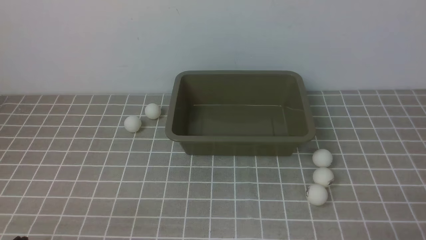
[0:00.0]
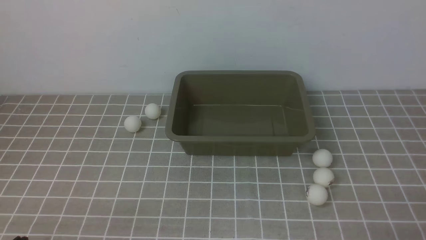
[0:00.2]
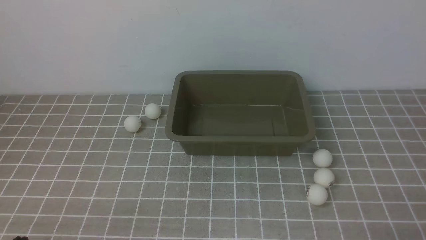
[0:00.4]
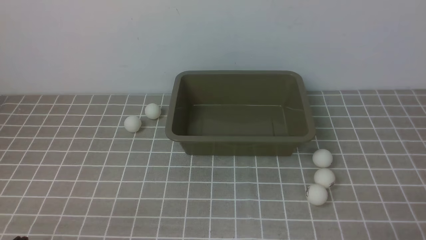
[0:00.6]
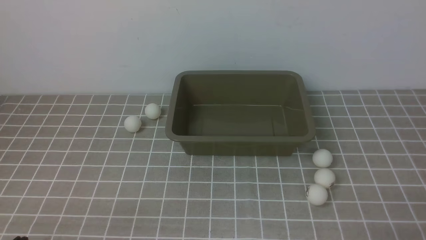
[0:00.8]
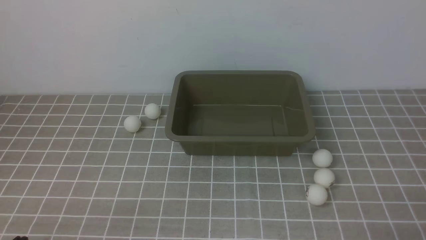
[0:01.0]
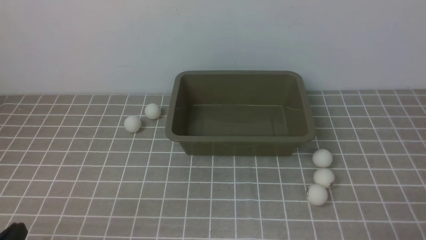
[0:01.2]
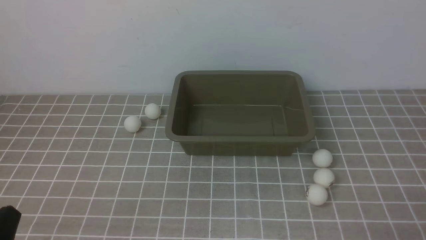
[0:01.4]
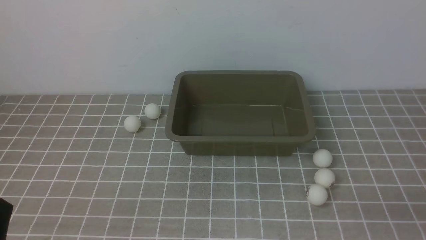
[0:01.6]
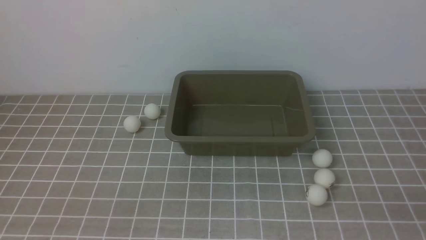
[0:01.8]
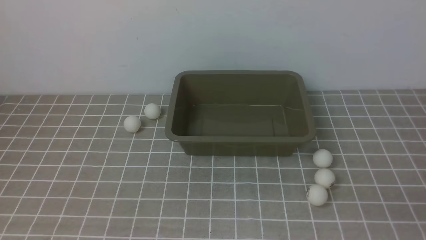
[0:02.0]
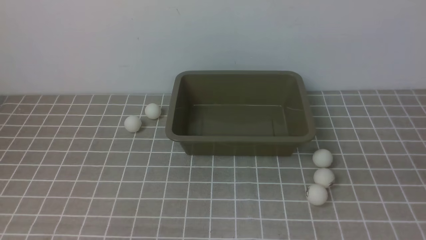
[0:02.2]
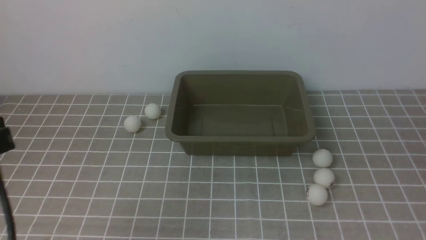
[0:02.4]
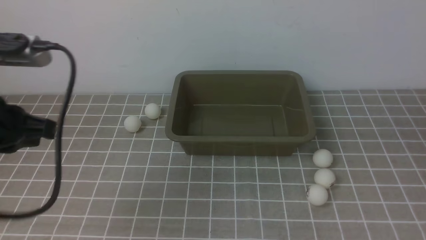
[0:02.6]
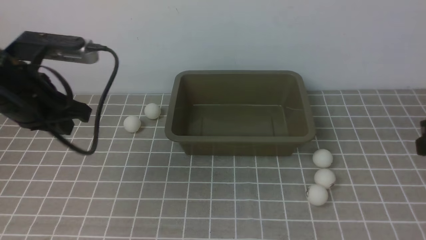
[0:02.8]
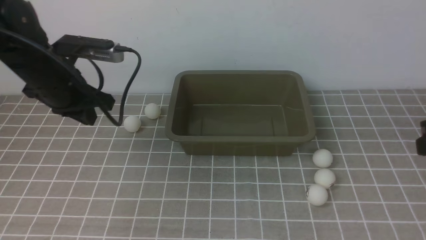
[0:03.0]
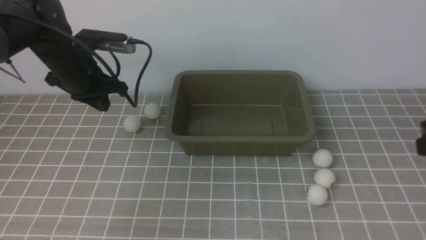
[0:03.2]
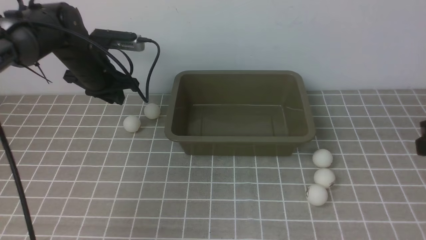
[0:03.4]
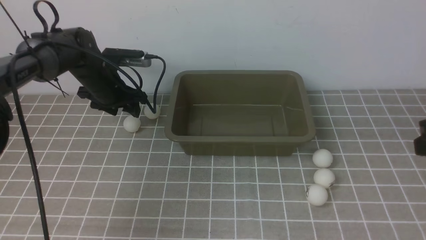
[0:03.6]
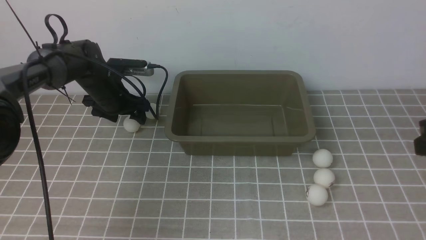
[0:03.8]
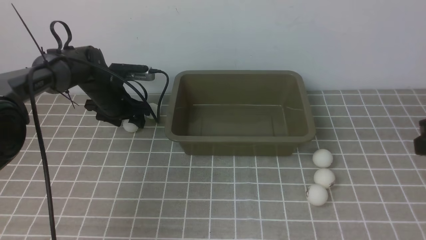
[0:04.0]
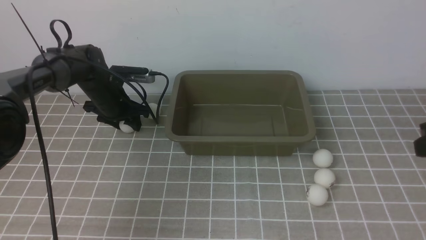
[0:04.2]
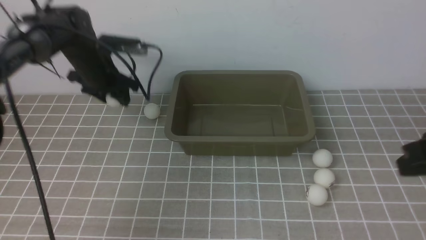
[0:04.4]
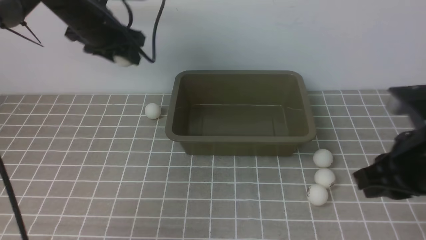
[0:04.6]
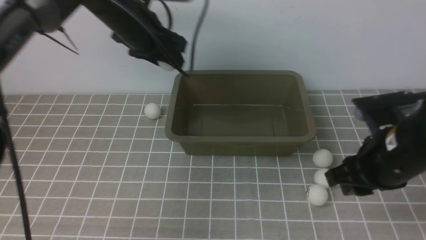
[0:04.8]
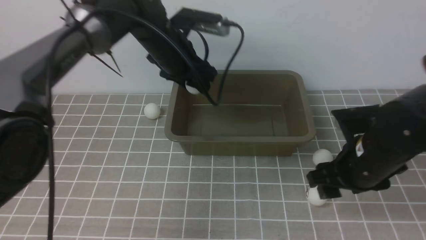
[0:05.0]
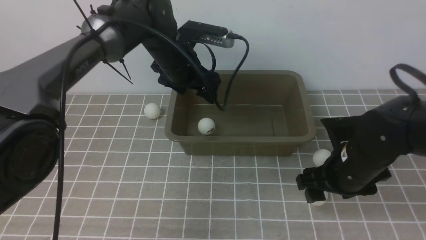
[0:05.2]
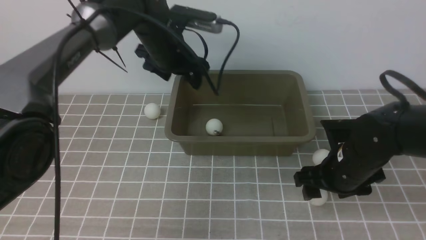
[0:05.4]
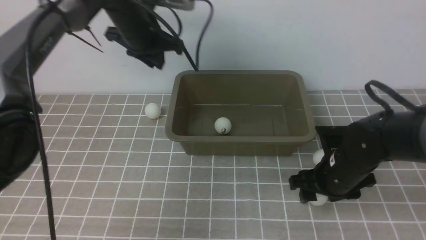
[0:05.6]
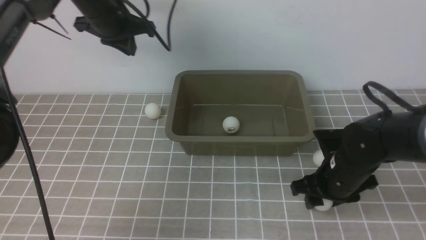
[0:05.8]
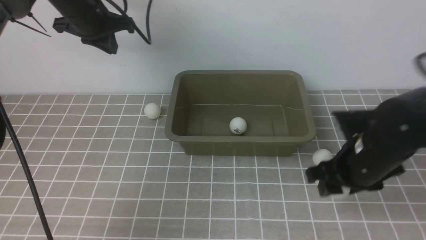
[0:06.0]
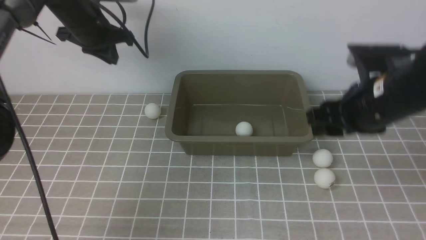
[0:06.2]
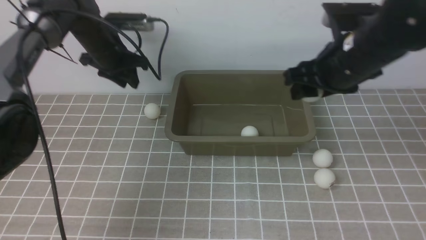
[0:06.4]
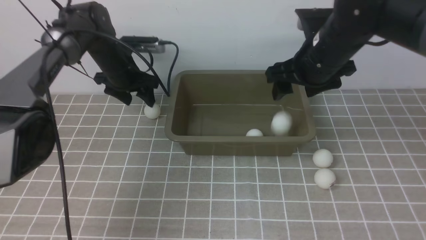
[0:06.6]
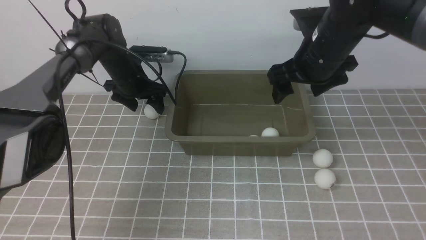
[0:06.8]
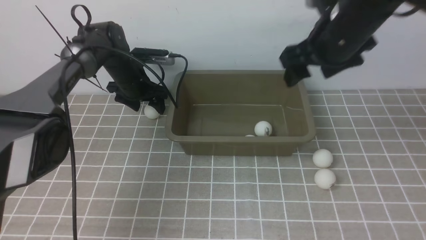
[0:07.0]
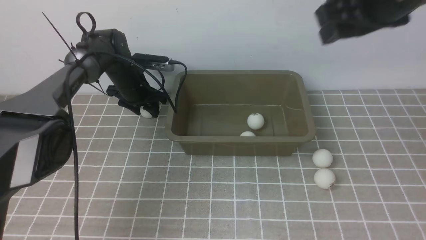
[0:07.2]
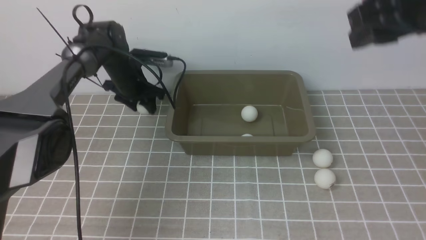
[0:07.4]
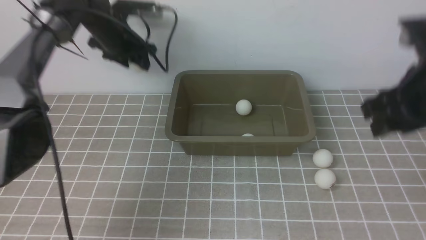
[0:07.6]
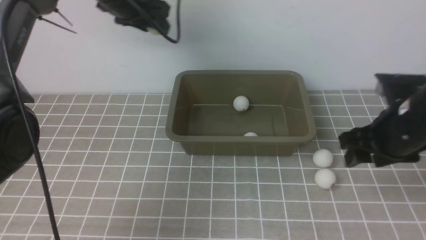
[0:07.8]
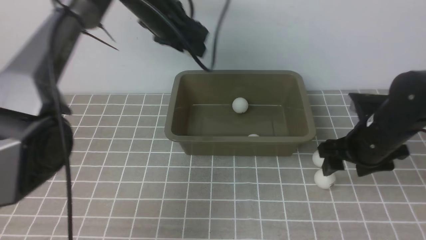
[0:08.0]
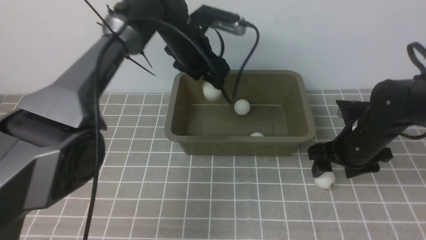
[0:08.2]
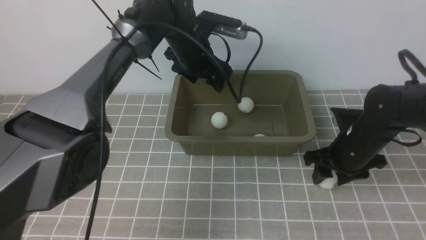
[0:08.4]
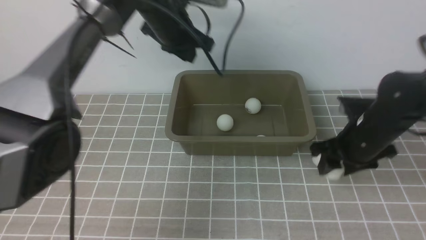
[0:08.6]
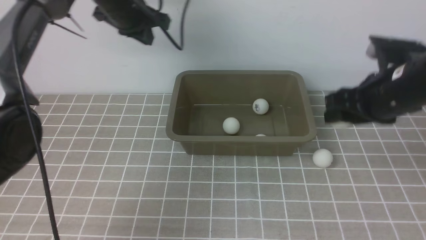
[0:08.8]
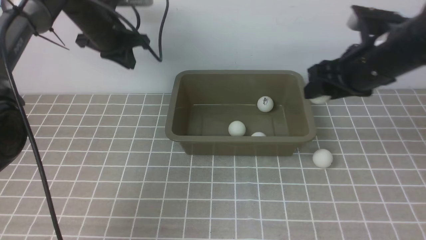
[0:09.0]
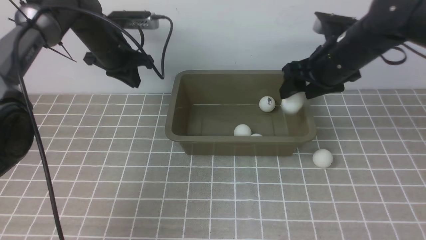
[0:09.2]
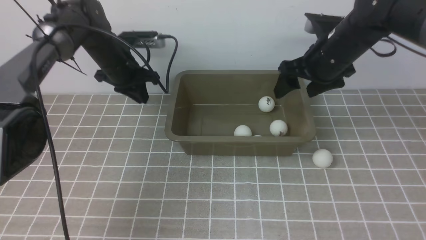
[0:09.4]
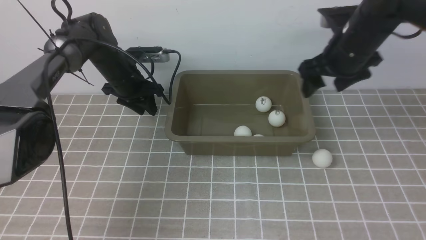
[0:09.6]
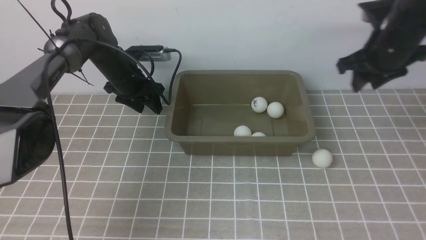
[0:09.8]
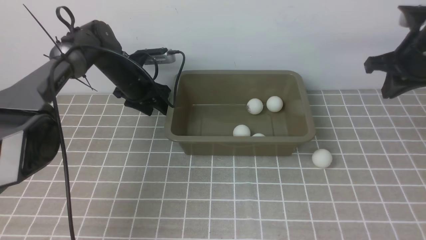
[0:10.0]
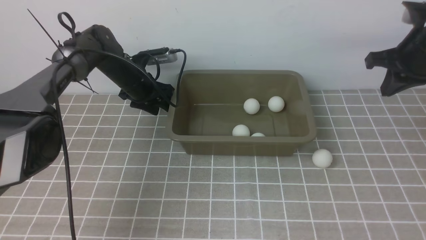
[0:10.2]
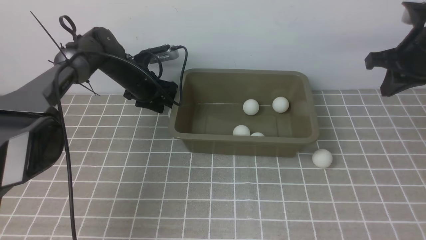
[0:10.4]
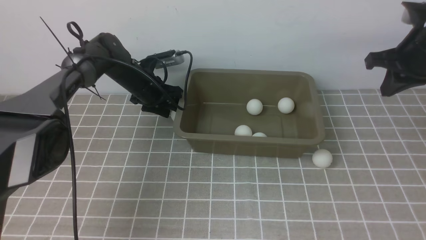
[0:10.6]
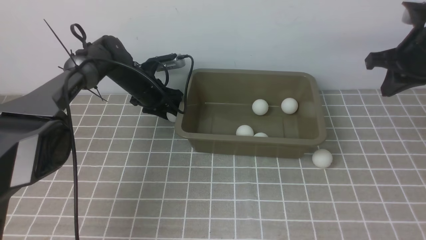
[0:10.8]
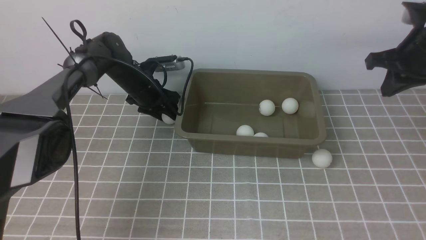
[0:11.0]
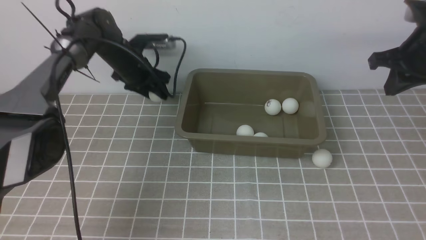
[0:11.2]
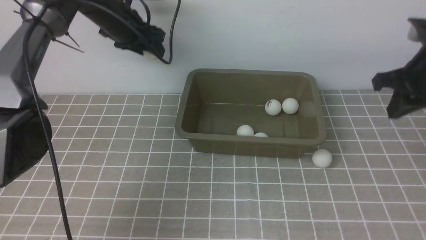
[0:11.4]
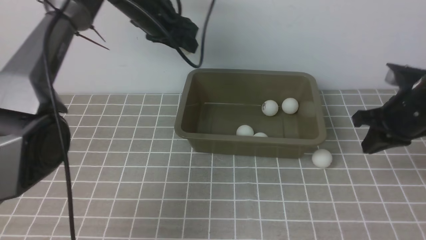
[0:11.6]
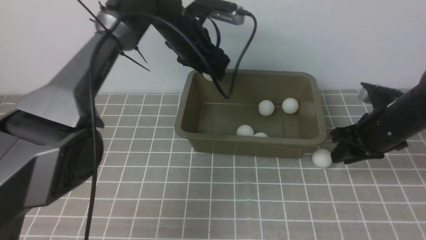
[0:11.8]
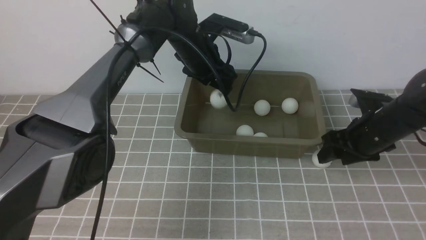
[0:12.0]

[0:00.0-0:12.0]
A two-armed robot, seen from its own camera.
Step, 0:00.0 to 0:04.4: use the left arm to clamp the table tennis ball closest to it.
Step, 0:04.6 to 0:05.2: use the left arm to put the table tennis ball into the box.
Step, 0:05.4 to 0:06.0: use the right arm to clamp the table tennis ball closest to it.
Step, 0:06.2 to 0:06.8: use the right arm to put the table tennis ball into the box.
Step, 0:07.0 to 0:07.4: use the left arm to clamp the table tennis ball closest to it.
Step, 0:07.8 to 0:08.2: use the left arm to put the table tennis ball into the box.
Step, 0:08.4 to 0:08.8: use the right arm to clamp the table tennis ball closest to it.
Step, 0:09.0 to 0:09.2: use the right arm to put the table tennis ball into the box.
Step, 0:09.6 to 0:11.2: use the left arm to clamp the table tennis ball closest to it.
0:01.6 to 0:03.0: The right gripper moves upward and forward, approximately 20 cm. The left gripper travels forward by some 30 cm.
0:03.0 to 0:04.4: The left gripper shifts about 10 cm forward, reaches some 15 cm downward, then returns, and opens its fingers.
0:04.4 to 0:06.0: The left gripper travels upward by about 5 cm, reaches approximately 15 cm to the right, then returns, and closes its fingers. The right gripper travels downward, forward and to the left by about 15 cm, and opens its fingers.
0:06.0 to 0:07.6: The right gripper goes some 10 cm upward, while the left gripper moves roughly 15 cm downward and comes back, and opens.
0:07.6 to 0:09.0: The right gripper travels forward by roughly 10 cm, and moves some 15 cm downward and comes back. Meanwhile the left gripper reaches roughly 10 cm to the right, then returns, and closes up.
0:09.0 to 0:10.4: The left gripper goes roughly 15 cm downward, and opens up. Meanwhile the right gripper travels to the right by approximately 10 cm, and closes its fingers.
0:10.4 to 0:12.0: The right gripper goes some 15 cm downward, and opens. The left gripper moves to the right and upward, about 15 cm.

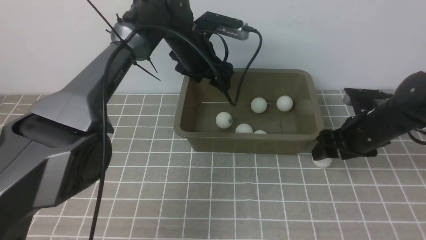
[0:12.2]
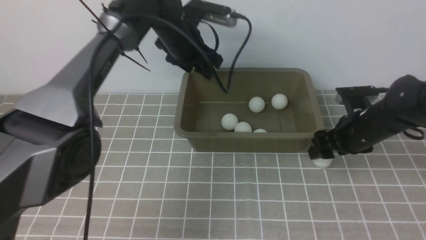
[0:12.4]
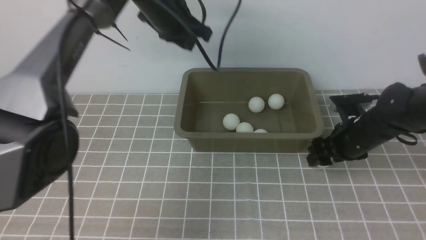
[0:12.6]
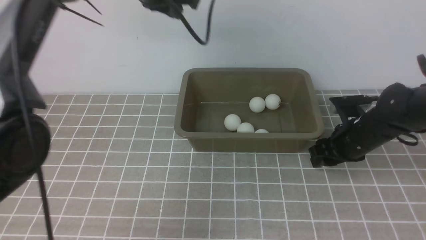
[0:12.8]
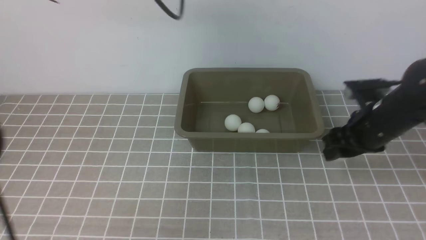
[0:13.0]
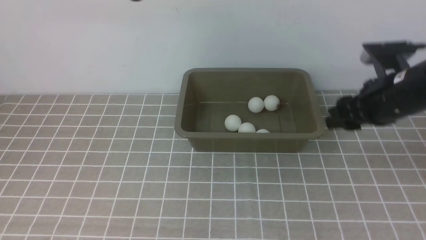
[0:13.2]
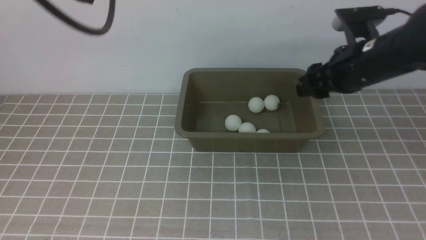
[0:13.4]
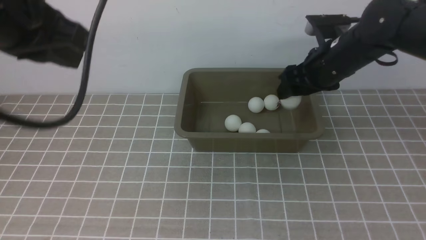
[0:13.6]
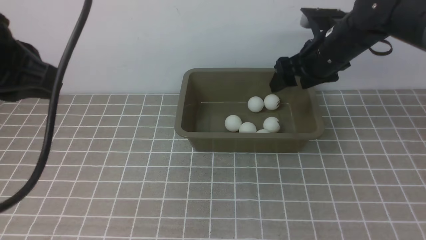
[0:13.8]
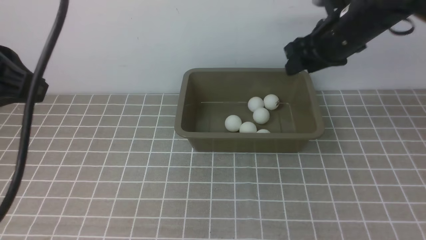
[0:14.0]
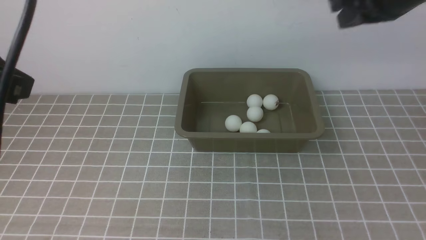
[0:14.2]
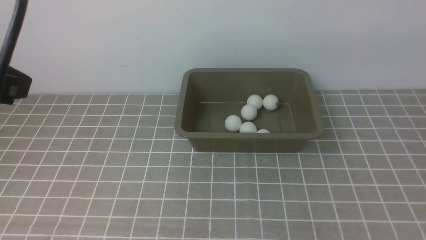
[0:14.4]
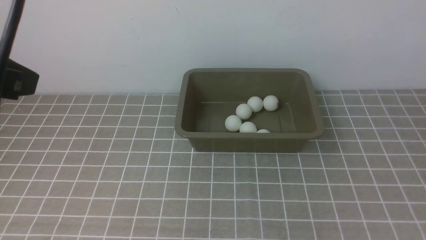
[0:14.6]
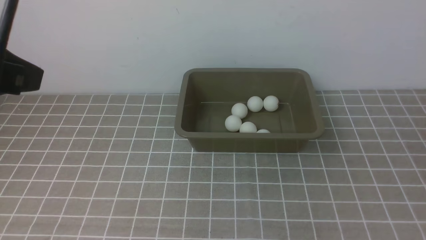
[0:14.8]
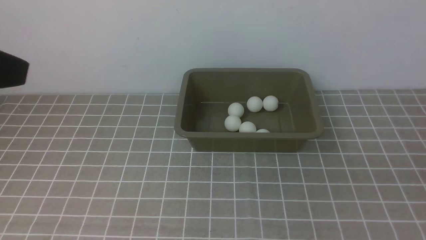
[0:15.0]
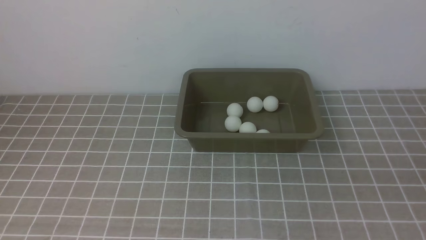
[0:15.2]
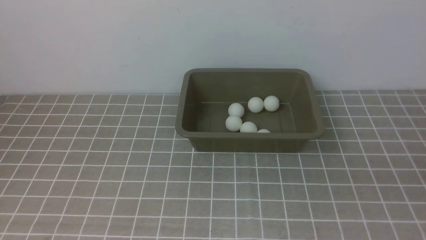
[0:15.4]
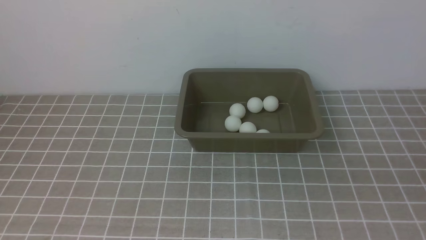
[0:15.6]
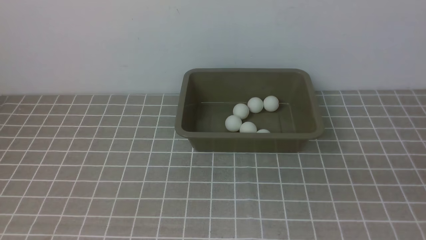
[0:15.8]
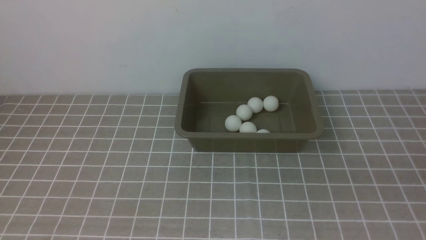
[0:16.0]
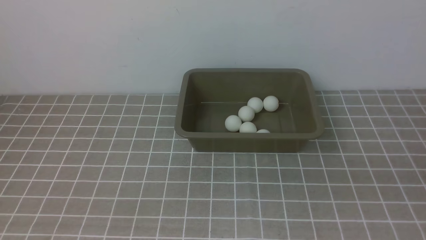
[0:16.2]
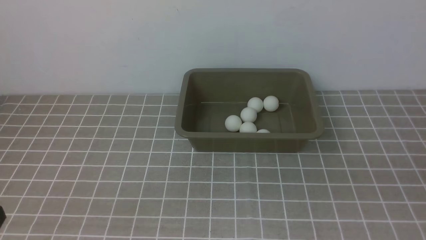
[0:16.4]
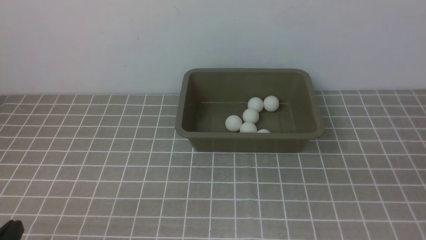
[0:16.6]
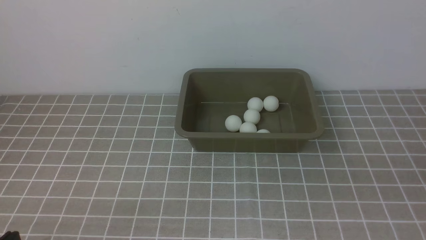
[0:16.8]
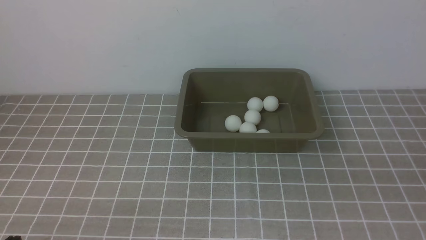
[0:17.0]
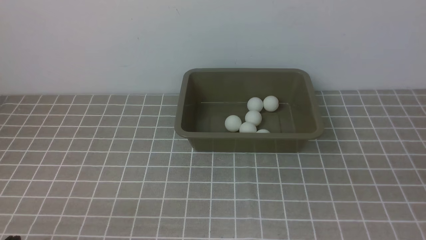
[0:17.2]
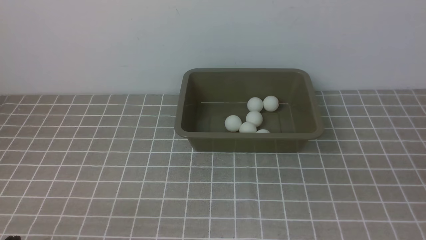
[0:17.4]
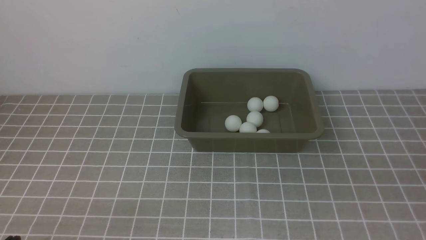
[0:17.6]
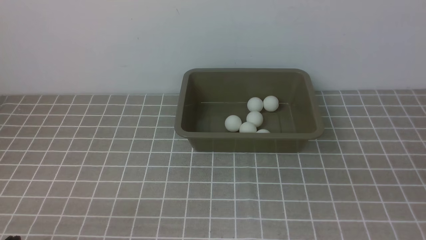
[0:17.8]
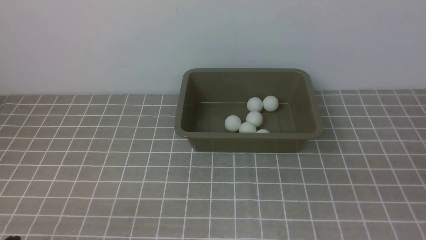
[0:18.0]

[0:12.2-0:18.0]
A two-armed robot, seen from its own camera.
Step, 0:12.4 to 0:13.2: use the right arm to clamp the table tennis ball closest to it.
Step, 0:13.4 to 0:13.8: use the right arm to put the table tennis ball into the box.
0:12.2 to 0:13.6: The right gripper heads upward and to the left, covering approximately 15 cm, while the left gripper shifts about 35 cm backward, upward and to the left, and closes its fingers.
0:13.6 to 0:15.0: The left gripper travels backward by about 10 cm; the right gripper goes about 40 cm backward, and closes.
0:15.0 to 0:16.6: The left gripper moves downward, approximately 25 cm.
